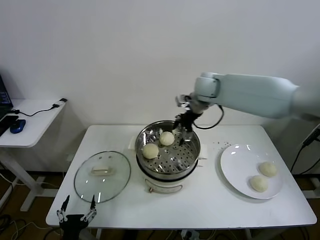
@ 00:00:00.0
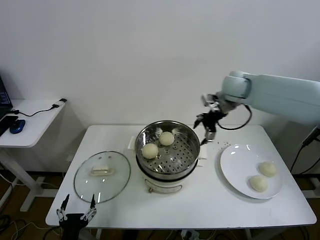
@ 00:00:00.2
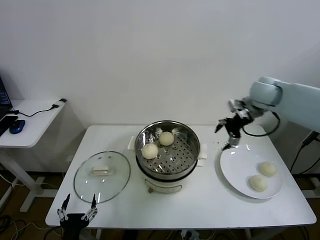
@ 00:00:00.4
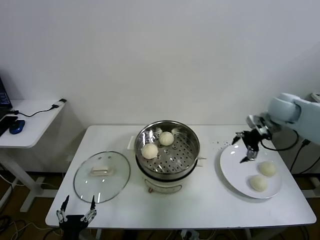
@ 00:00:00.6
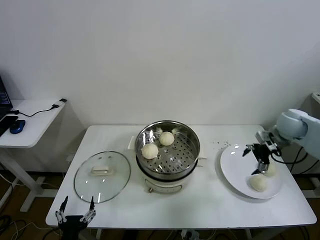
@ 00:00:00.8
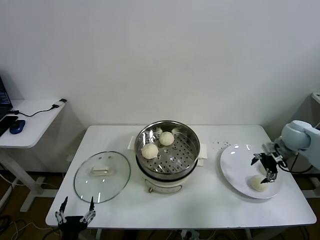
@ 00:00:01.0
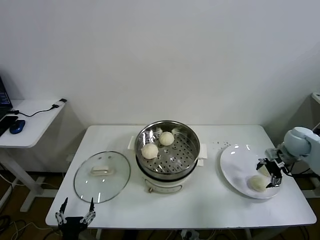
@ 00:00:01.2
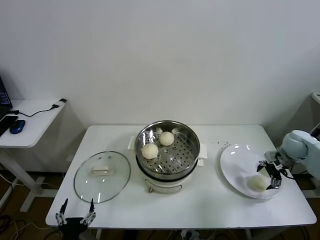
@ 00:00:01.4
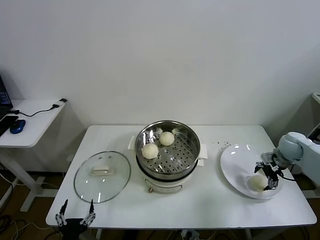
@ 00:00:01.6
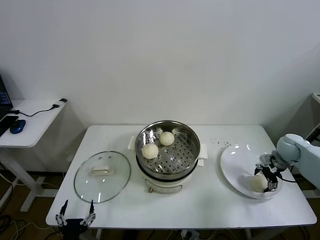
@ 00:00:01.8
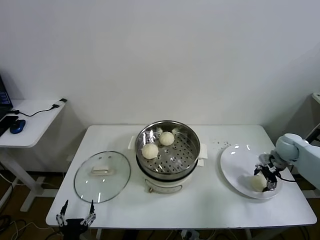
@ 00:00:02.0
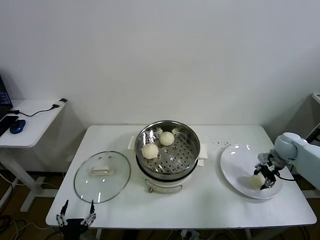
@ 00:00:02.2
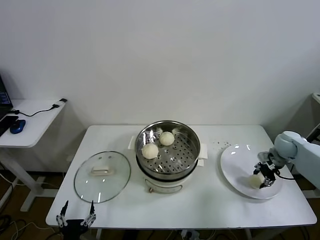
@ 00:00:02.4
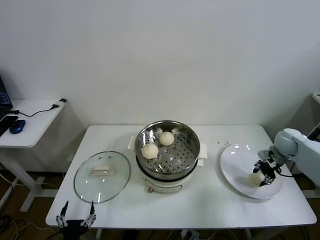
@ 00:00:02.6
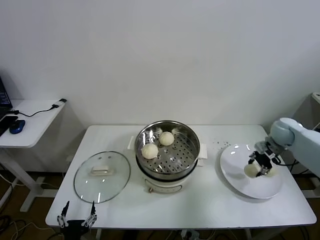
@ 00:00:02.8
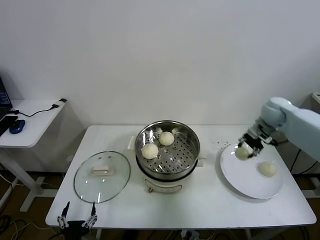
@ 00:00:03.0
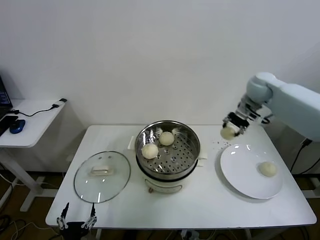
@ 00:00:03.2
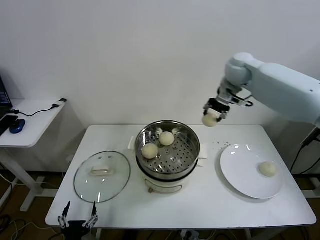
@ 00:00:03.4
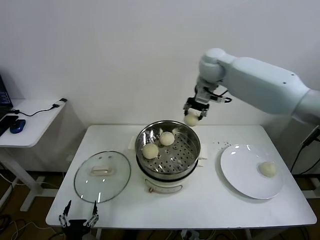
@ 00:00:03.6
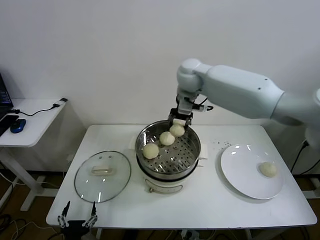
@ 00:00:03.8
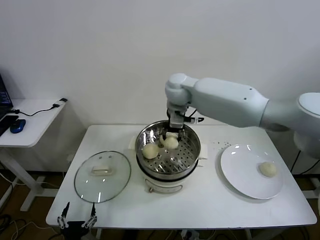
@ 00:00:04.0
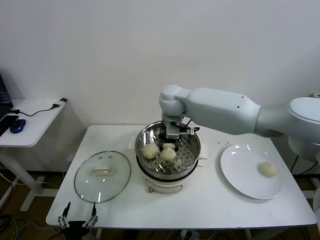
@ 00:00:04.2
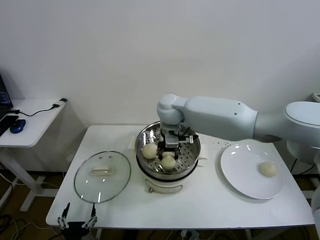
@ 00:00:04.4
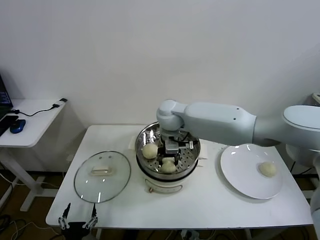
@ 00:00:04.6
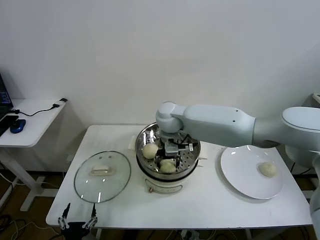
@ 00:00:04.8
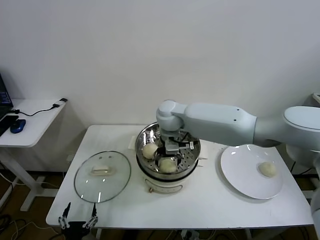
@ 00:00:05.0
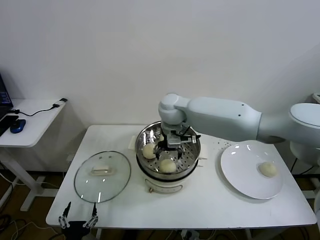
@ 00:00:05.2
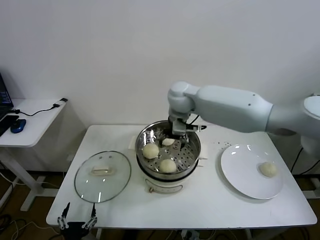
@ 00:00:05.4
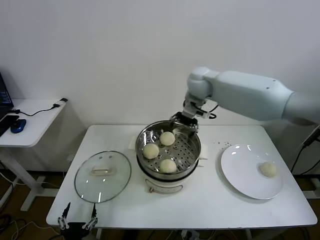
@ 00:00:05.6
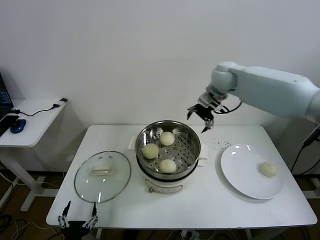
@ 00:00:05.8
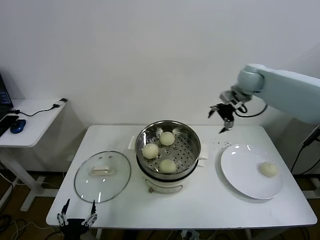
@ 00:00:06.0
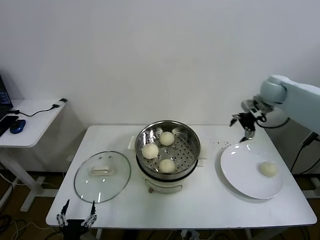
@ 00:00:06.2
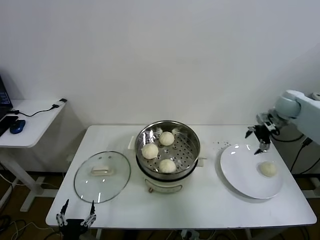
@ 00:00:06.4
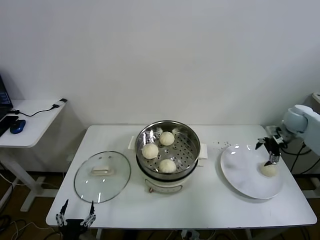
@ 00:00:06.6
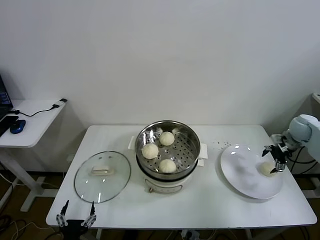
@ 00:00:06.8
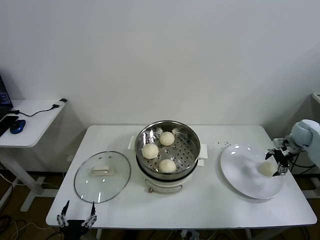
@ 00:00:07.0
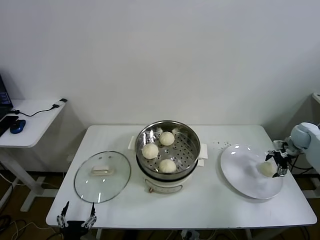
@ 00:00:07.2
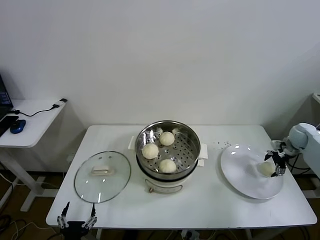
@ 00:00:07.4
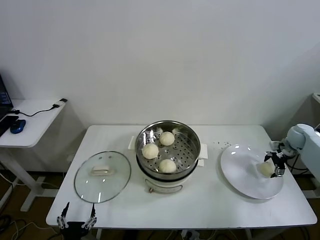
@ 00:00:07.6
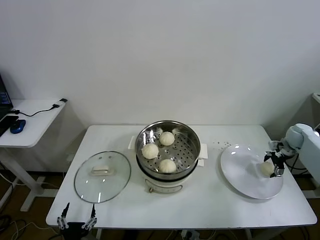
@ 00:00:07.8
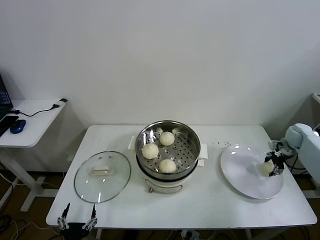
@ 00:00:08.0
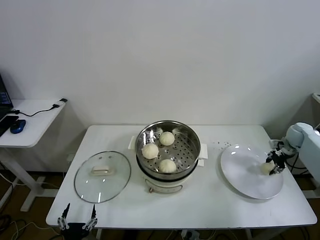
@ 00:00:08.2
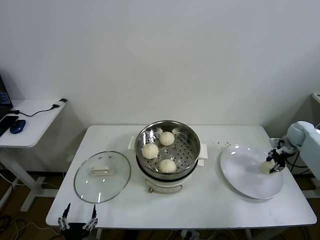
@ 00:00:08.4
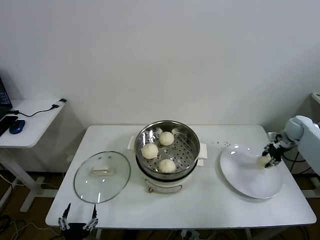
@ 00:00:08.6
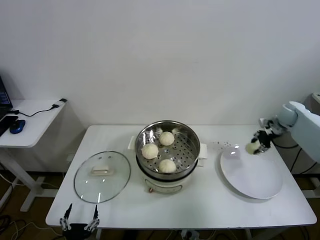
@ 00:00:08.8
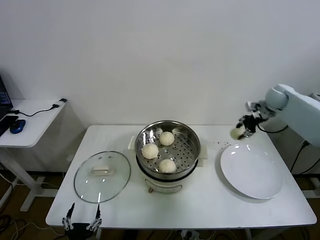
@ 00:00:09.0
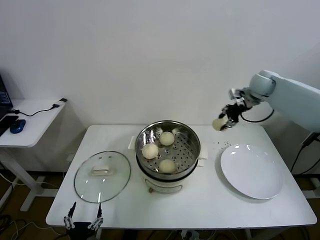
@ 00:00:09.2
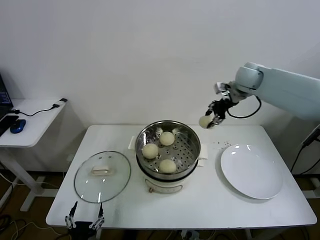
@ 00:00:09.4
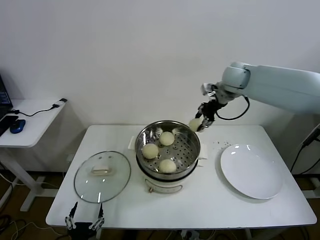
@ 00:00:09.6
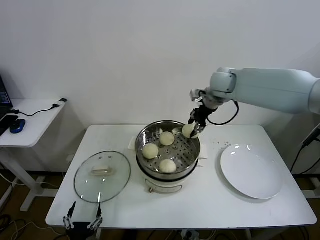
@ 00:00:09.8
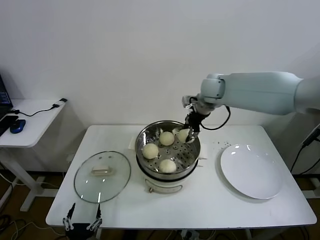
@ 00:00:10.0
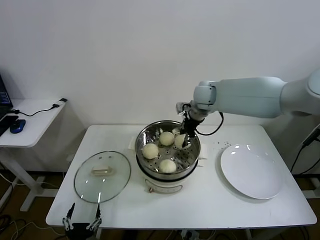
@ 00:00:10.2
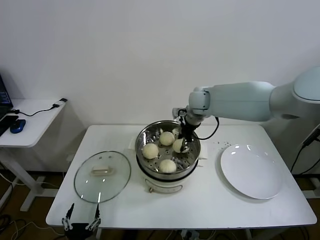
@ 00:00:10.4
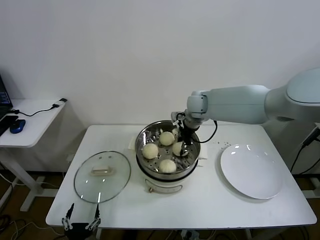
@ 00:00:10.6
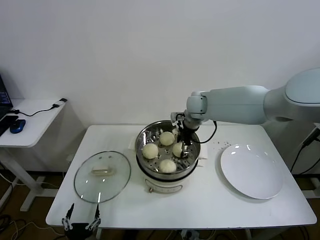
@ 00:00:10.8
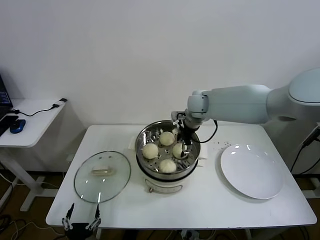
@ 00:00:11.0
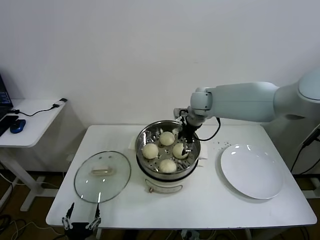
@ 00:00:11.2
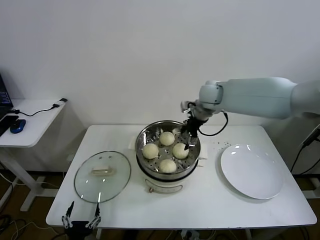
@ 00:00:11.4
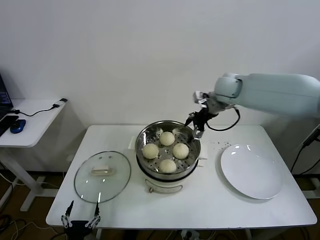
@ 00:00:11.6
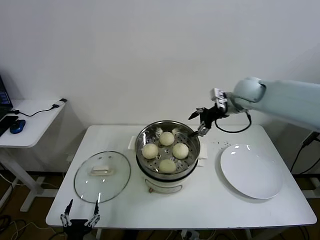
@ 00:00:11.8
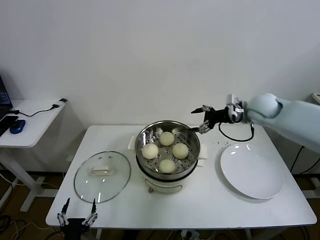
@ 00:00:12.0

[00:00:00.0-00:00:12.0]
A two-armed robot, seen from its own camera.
Task of the whole recording: take steamed baozi put them in steamer.
Step, 00:00:00.0 to 00:00:02.2: Grasp the baozi in the plate with right gripper.
Step, 00:00:02.4 to 00:00:05.2: Place the baozi on the steamer with right gripper.
Step, 00:00:05.4 to 00:00:08.0: Grasp the baozi in the plate with right gripper.
Step, 00:00:08.2 to 00:00:11.4: Place the baozi on the steamer with right gripper.
00:00:00.0 to 00:00:01.6: The right gripper shifts about 35 cm to the right and downward.
00:00:01.6 to 00:00:03.0: The right gripper travels upward, to the left and forward by about 20 cm, and closes its fingers.
00:00:03.0 to 00:00:04.4: The right gripper moves to the left, roughly 35 cm.
00:00:04.4 to 00:00:06.0: The right gripper moves to the right, roughly 30 cm, and opens its fingers.
00:00:06.0 to 00:00:07.6: The right gripper goes approximately 30 cm downward and to the right.
00:00:07.6 to 00:00:09.0: The right gripper shifts some 20 cm upward, to the left and forward, and closes up.
00:00:09.0 to 00:00:10.4: The right gripper goes approximately 30 cm to the left.
00:00:10.4 to 00:00:12.0: The right gripper moves to the right, roughly 20 cm, and opens its fingers.

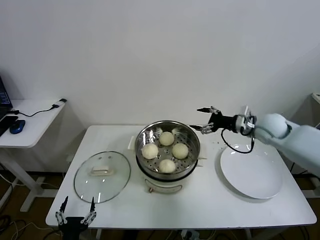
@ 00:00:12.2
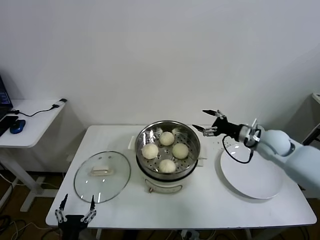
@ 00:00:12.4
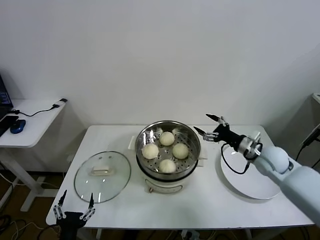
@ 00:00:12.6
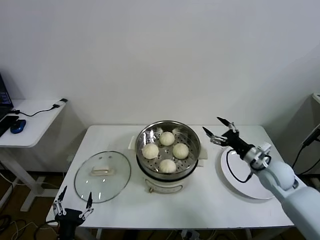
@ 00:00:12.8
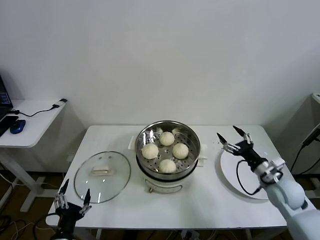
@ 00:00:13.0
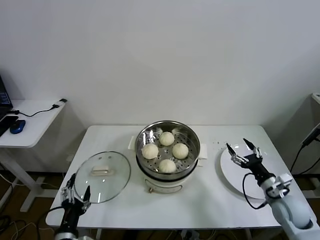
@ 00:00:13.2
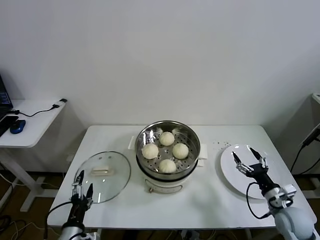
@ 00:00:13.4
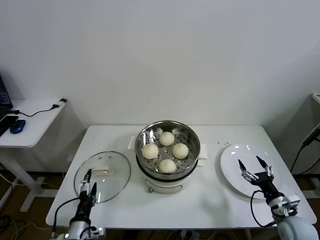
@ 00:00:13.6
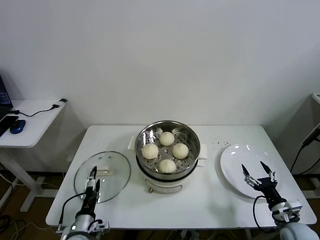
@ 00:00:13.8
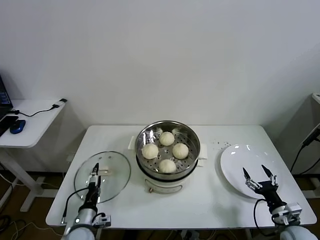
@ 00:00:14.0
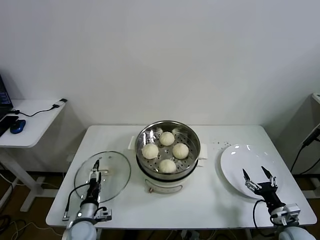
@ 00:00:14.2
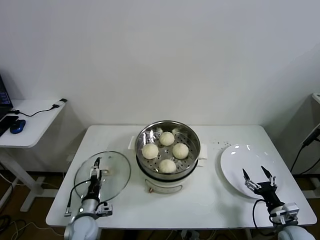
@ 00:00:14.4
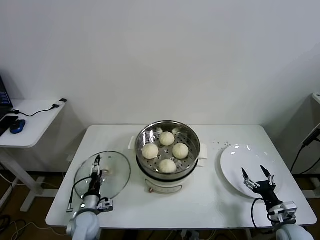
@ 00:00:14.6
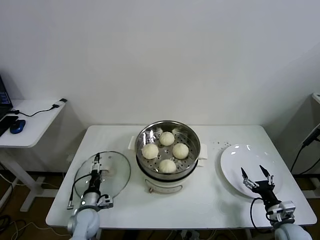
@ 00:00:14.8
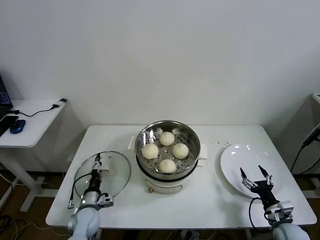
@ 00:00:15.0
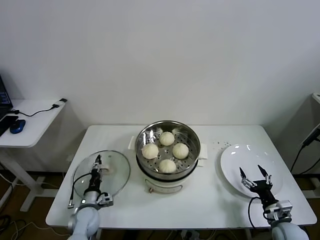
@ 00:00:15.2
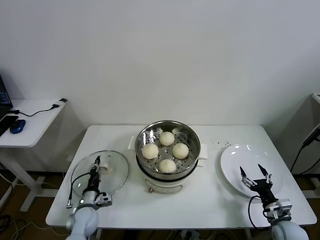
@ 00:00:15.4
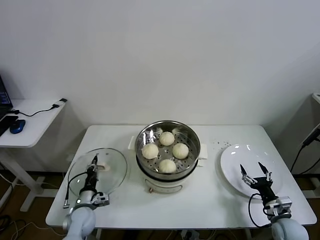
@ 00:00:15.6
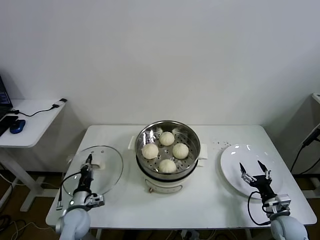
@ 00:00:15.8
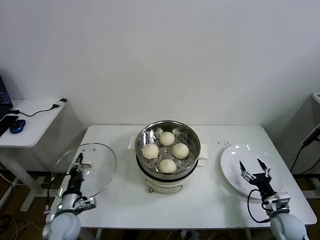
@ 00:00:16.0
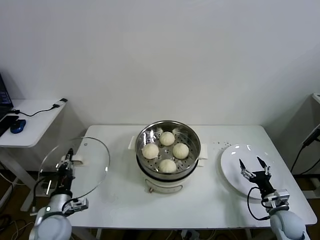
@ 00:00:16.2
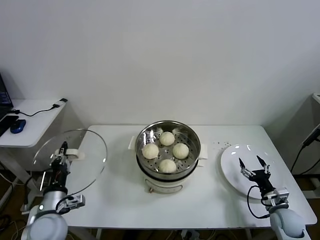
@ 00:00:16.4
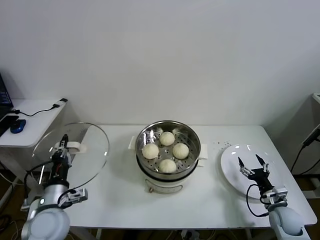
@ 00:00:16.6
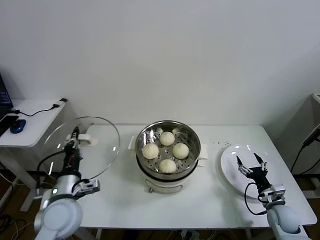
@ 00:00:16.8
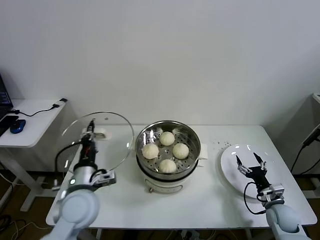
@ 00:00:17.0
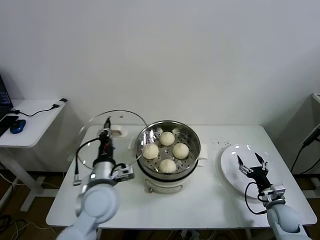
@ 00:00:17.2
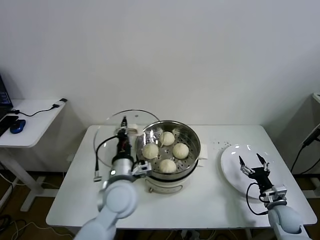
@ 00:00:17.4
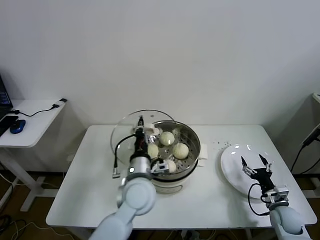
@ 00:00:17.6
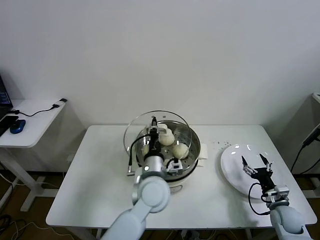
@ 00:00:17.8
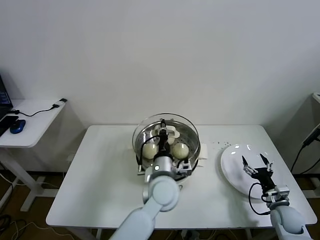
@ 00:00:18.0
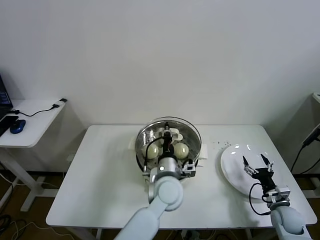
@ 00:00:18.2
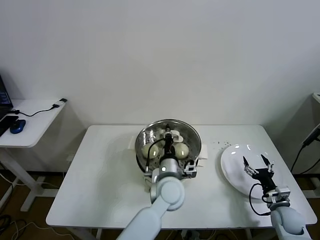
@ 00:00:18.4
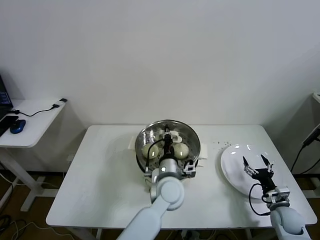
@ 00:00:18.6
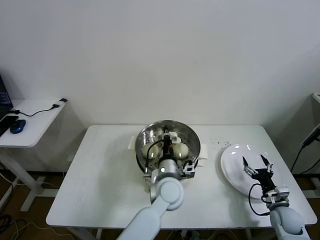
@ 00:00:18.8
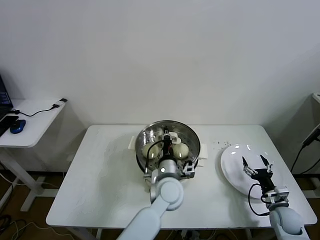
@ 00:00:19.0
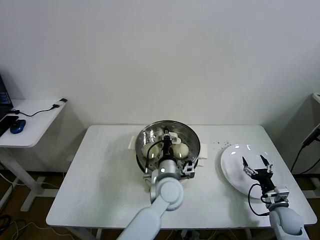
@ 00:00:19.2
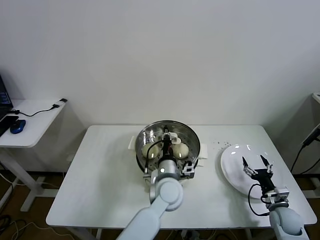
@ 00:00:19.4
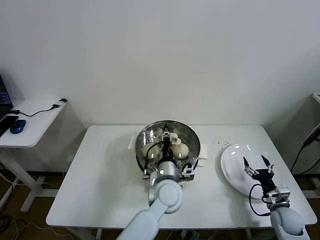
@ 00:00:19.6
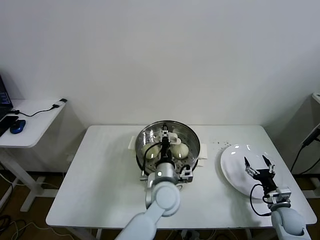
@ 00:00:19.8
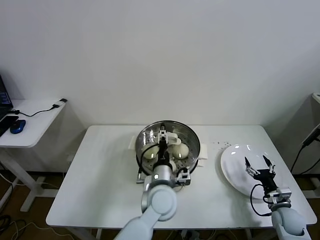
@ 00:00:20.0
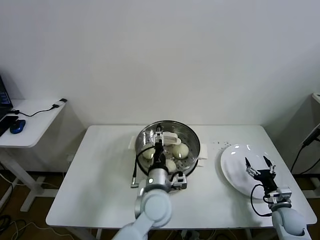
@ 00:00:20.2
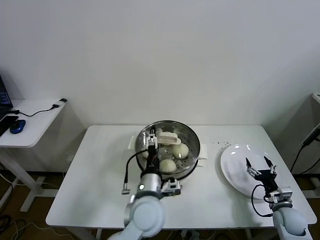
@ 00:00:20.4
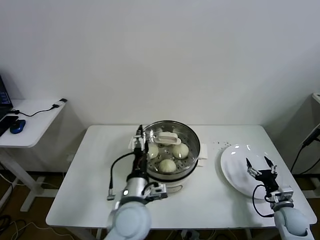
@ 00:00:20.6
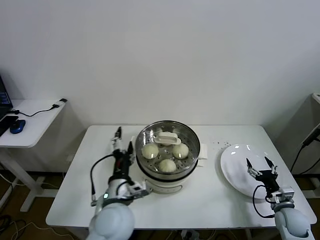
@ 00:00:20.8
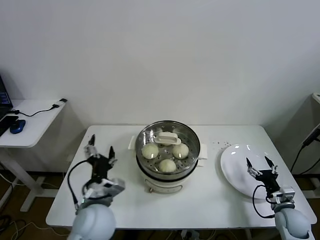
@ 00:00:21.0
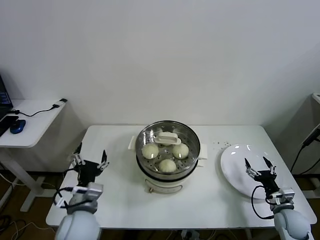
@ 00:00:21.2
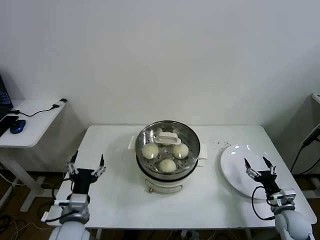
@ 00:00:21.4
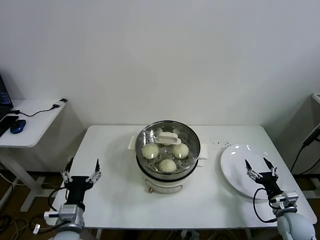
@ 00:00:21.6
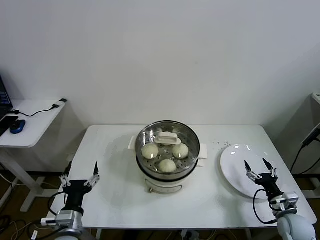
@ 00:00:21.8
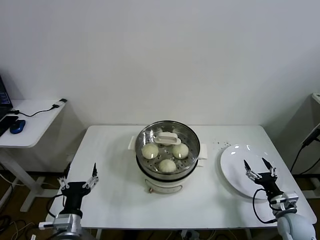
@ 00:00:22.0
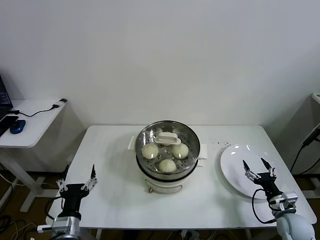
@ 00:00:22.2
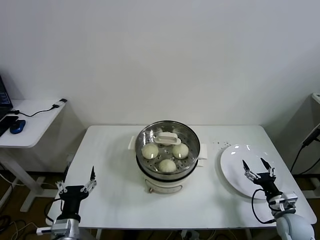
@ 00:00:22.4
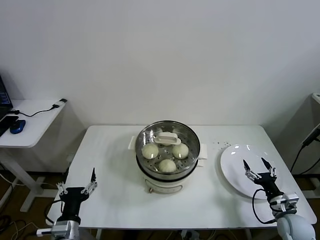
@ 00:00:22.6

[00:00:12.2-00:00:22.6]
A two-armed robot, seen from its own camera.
Task of the whole recording: take steamed baozi put them in steamer.
Step, 00:00:12.2 to 00:00:15.4: Grasp the pot lid with left gripper.
Step, 00:00:15.6 to 00:00:20.0: Place the pot lid on the steamer with left gripper.
00:00:12.2 to 00:00:13.6: The left gripper heads forward, covering roughly 10 cm; the right gripper travels backward and downward by approximately 30 cm.
00:00:13.6 to 00:00:15.2: The right gripper shifts by about 5 cm; the left gripper travels forward and downward by some 15 cm, and closes up.
00:00:15.2 to 00:00:16.6: The right gripper moves about 5 cm. Meanwhile the left gripper shifts approximately 20 cm upward, and closes its fingers.
00:00:16.6 to 00:00:18.2: The left gripper moves to the right, approximately 30 cm.
00:00:18.2 to 00:00:19.6: The grippers move only a little.
00:00:19.6 to 00:00:21.2: The left gripper is displaced to the left and backward by about 25 cm, and opens.
00:00:21.2 to 00:00:22.6: The left gripper heads downward, backward and to the left, covering about 15 cm.
